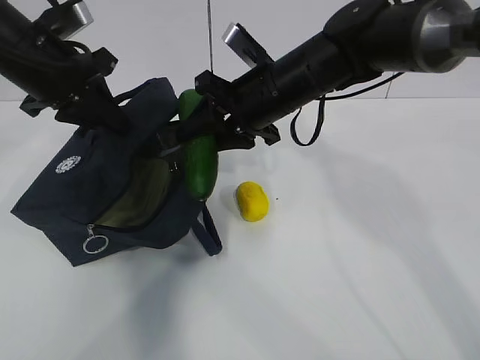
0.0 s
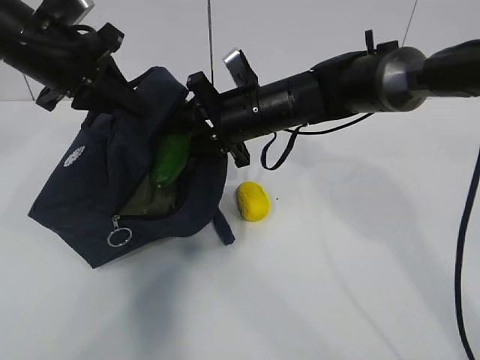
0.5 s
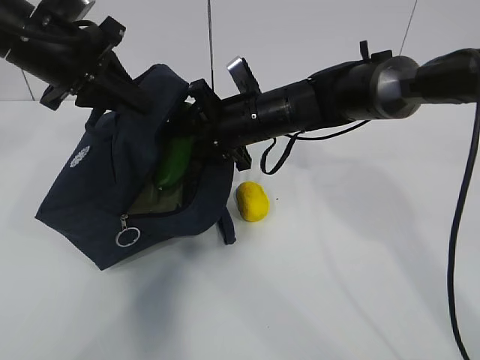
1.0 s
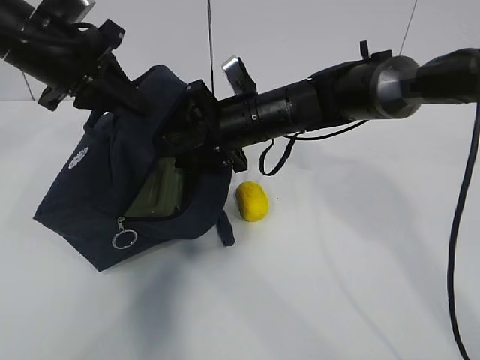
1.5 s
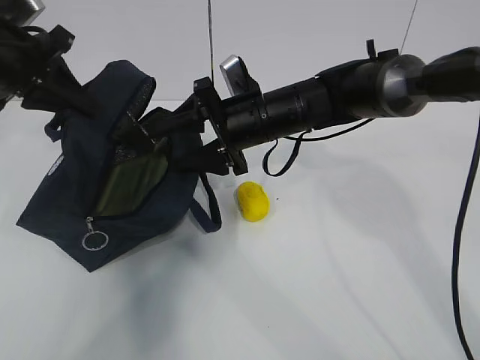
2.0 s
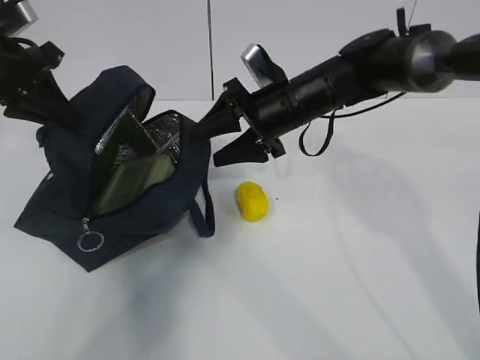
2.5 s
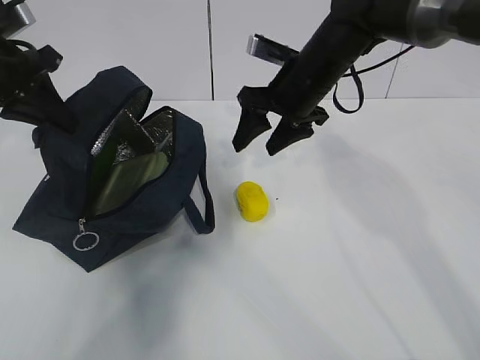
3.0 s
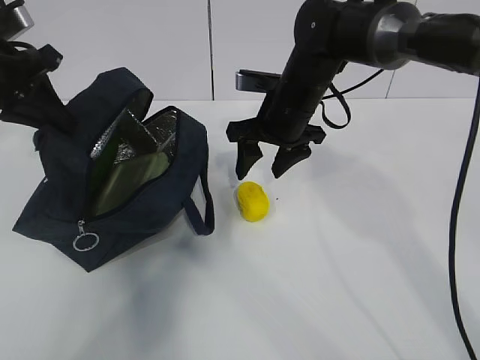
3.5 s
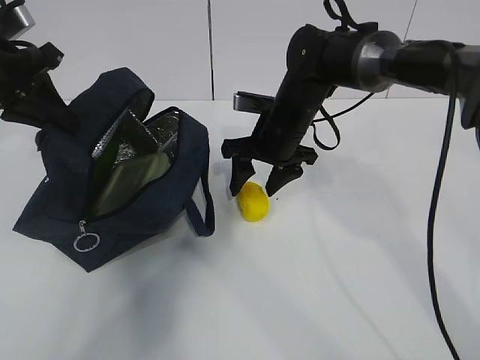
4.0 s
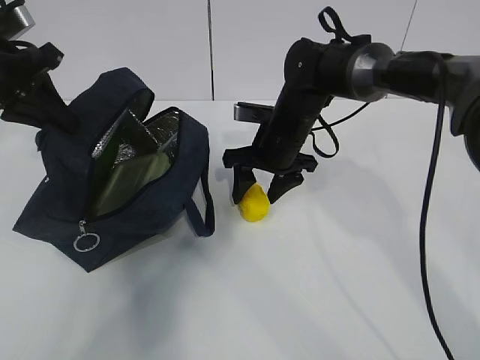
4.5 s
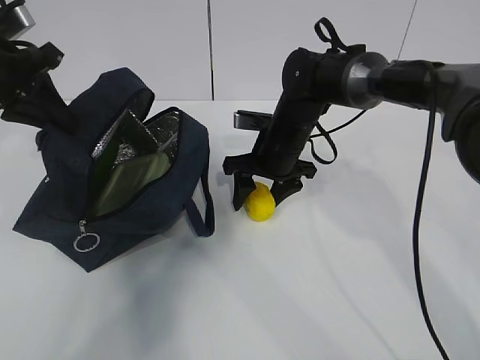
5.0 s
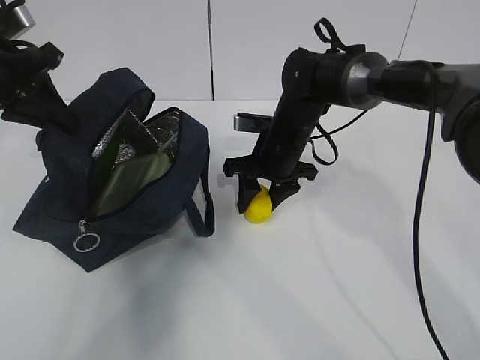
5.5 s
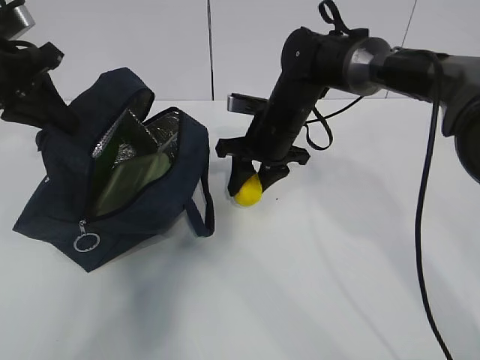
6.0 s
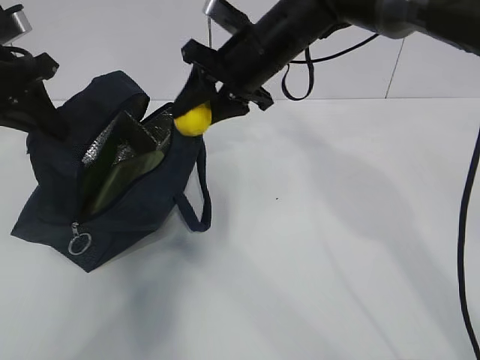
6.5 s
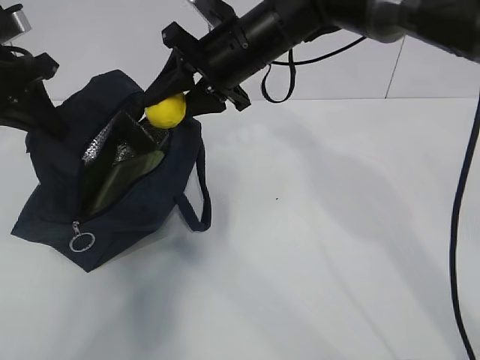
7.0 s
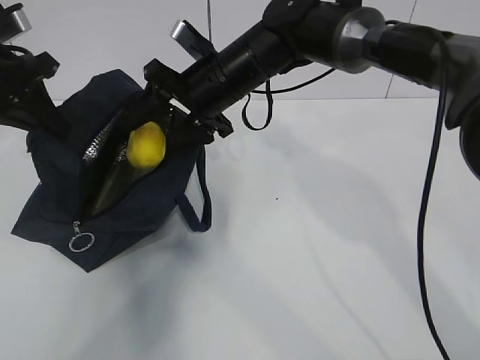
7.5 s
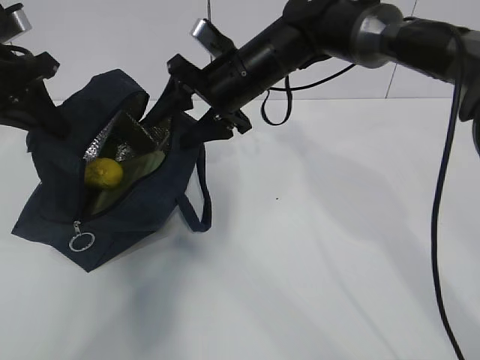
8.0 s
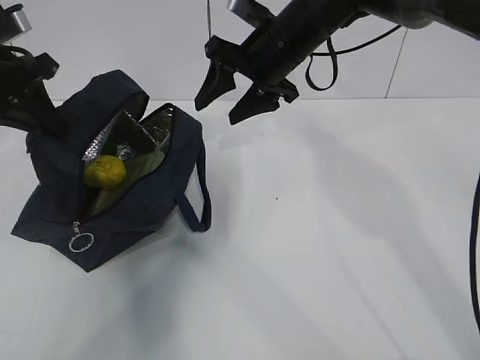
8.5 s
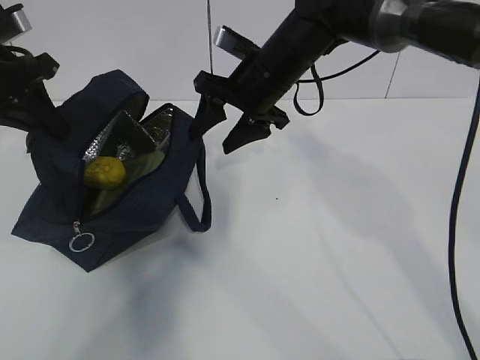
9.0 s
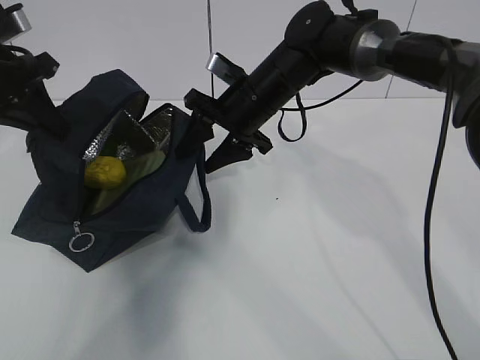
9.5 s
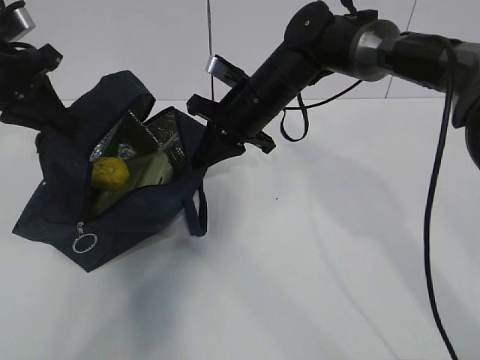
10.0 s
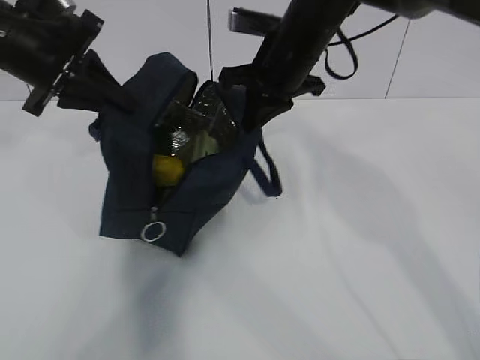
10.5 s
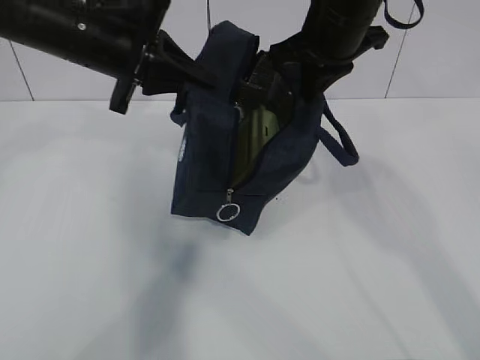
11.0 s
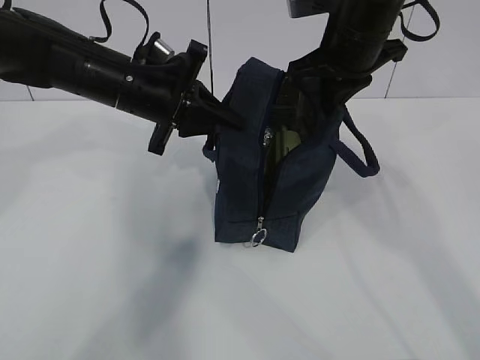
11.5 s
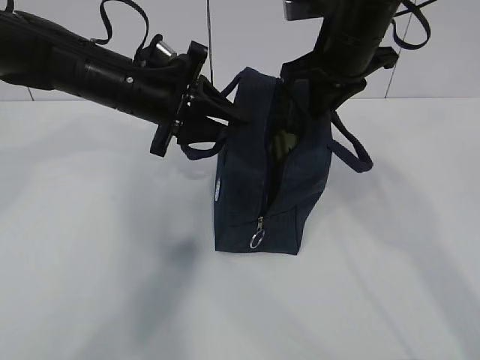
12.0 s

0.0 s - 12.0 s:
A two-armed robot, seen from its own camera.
Step, 0.0 s - 1.5 s: Secure the lunch bag with your left hand.
Step, 2.5 s - 3.0 s: Grab the lunch bag with your right hand.
Step, 3.5 s - 5.0 s: Move the lunch bag to the right.
0.0 s - 2.0 s: The right gripper opens; the left gripper shifts roughly 5 cm to the left.
2.0 s - 4.0 s: The right gripper shifts by some 5 cm.
4.0 s - 6.0 s: The right gripper closes.
6.0 s - 8.0 s: The right gripper travels upward by about 10 cm.
8.0 s - 10.0 s: The right gripper closes its fingers.
10.0 s - 12.0 s: The left gripper shifts roughly 15 cm to the right, and opens up, while the right gripper goes roughly 15 cm upward and to the right.

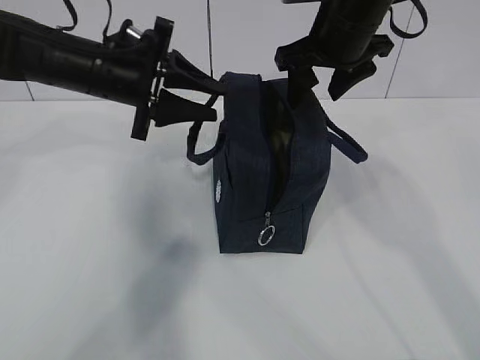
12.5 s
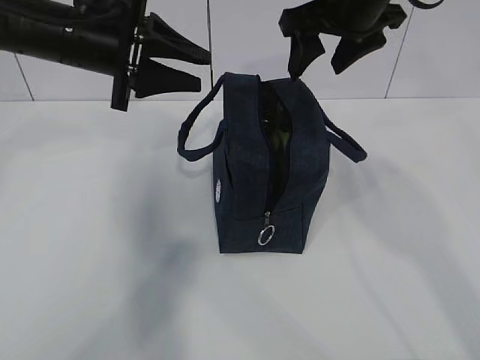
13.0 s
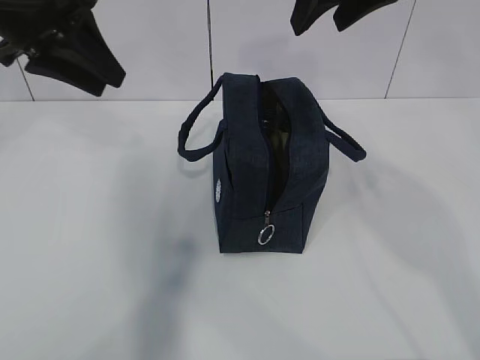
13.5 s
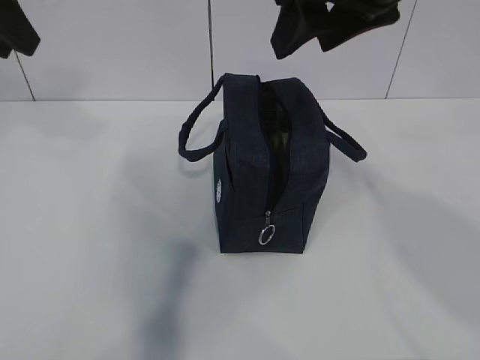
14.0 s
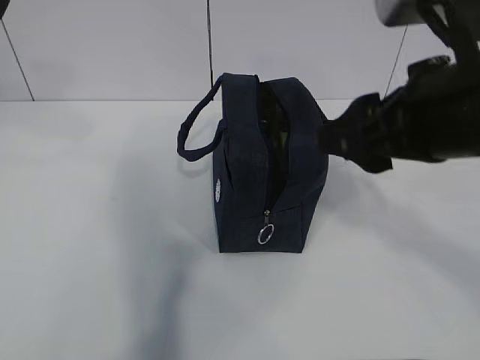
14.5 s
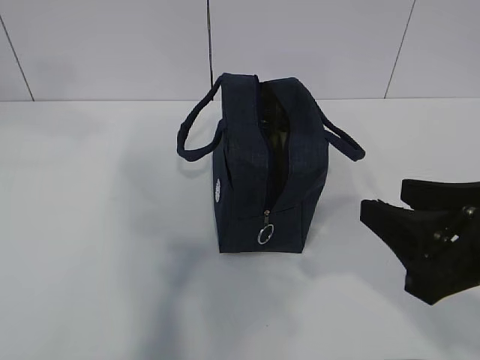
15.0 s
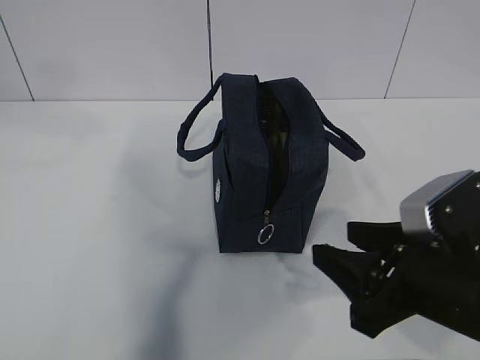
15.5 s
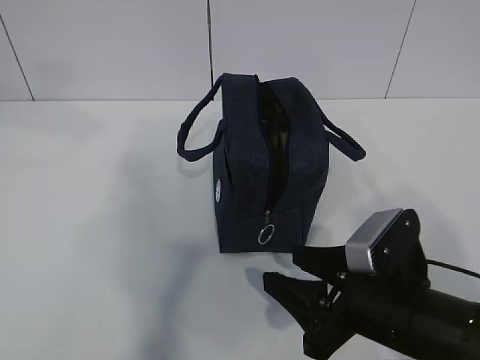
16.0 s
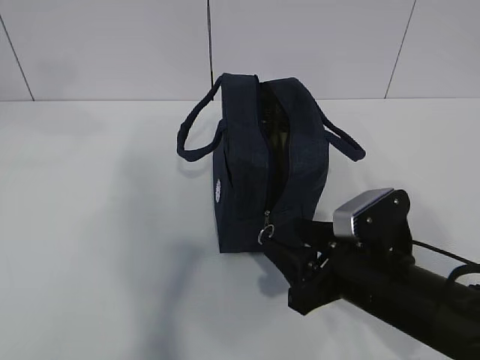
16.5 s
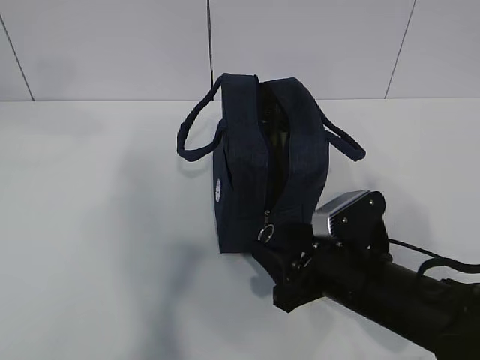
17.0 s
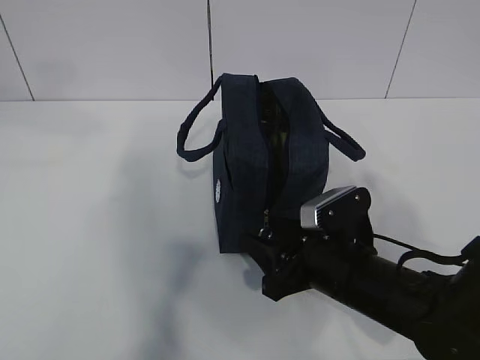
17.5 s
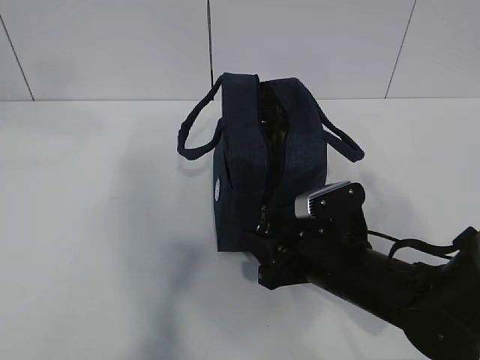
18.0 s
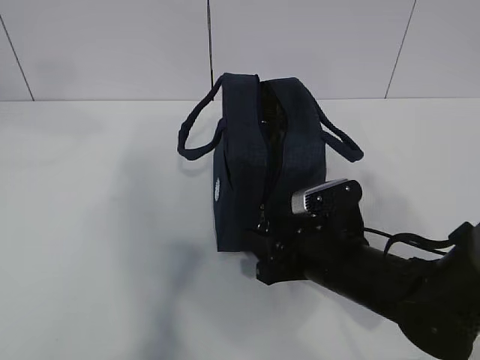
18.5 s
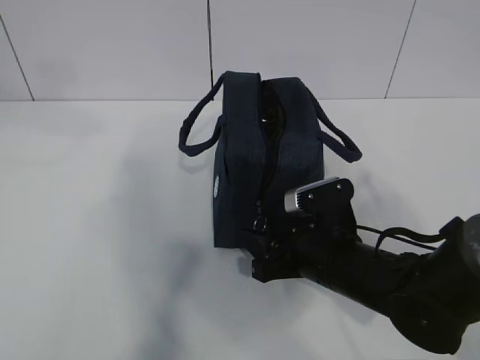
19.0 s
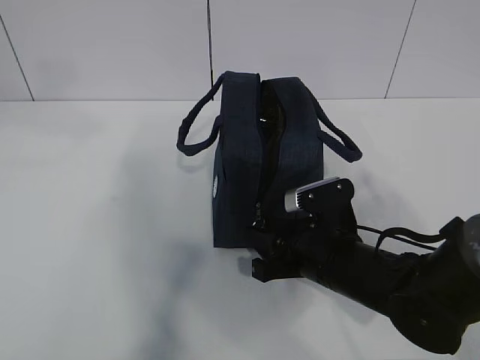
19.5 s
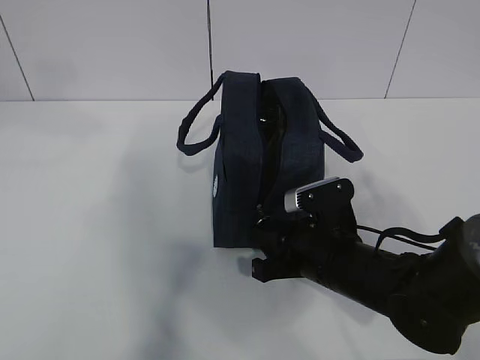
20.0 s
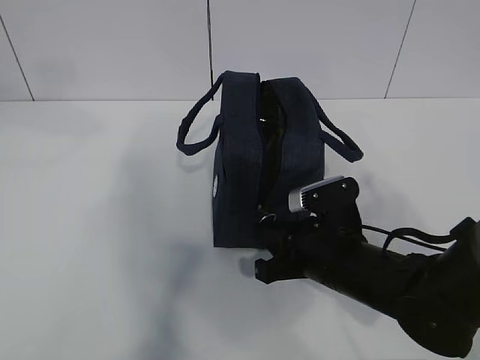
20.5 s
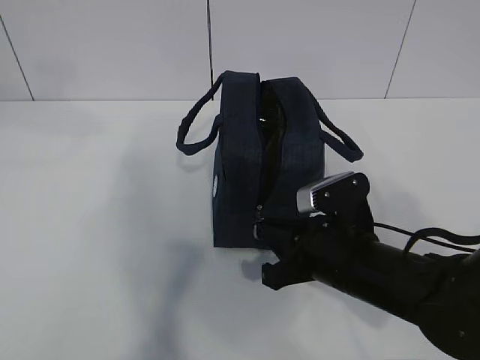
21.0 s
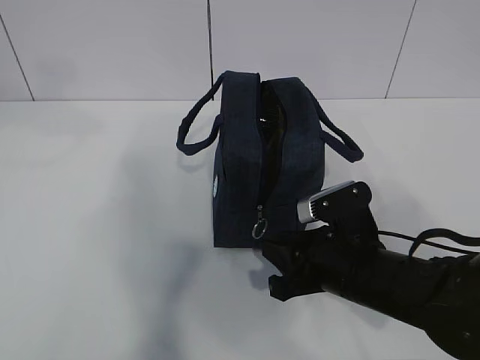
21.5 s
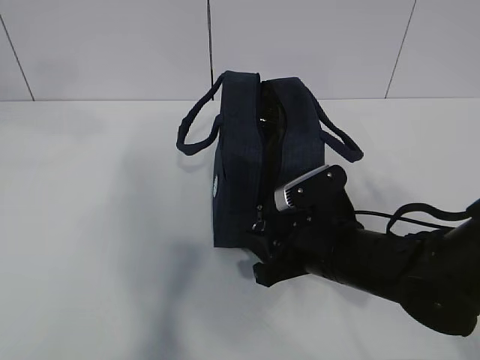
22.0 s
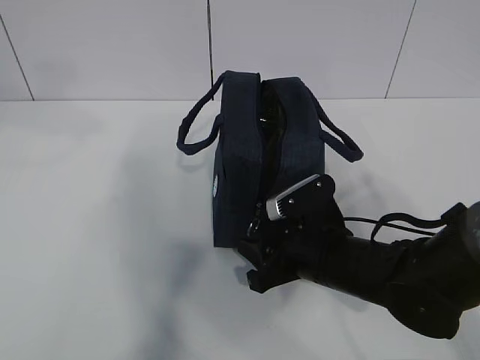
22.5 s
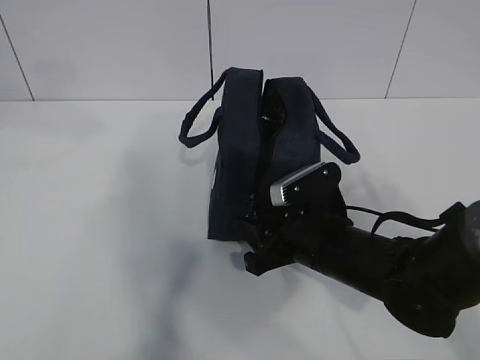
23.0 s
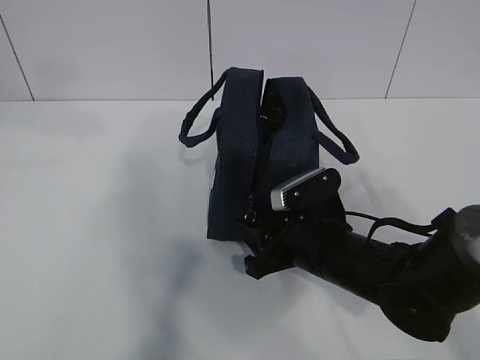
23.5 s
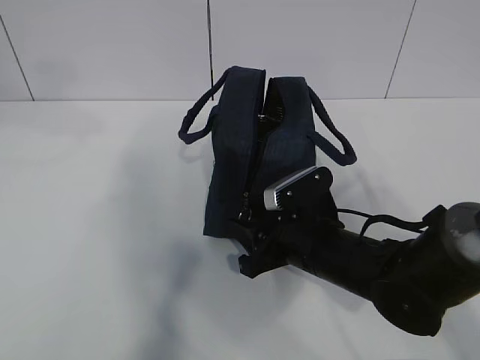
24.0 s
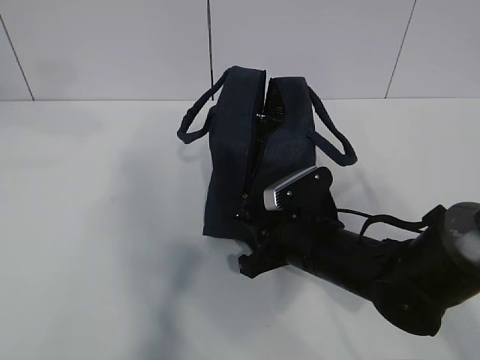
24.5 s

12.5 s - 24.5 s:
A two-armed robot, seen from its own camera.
12.5 s - 14.5 s: The right gripper goes some 20 cm backward, while the left gripper is displaced upward, backward and to the left by approximately 25 cm.
14.5 s - 16.5 s: The right gripper moves downward, about 20 cm.
16.5 s - 18.5 s: The right gripper changes place by some 5 cm.
18.5 s - 20.5 s: The right gripper closes.
20.5 s - 22.5 s: The right gripper opens up.
22.5 s - 24.5 s: The grippers make only small movements.

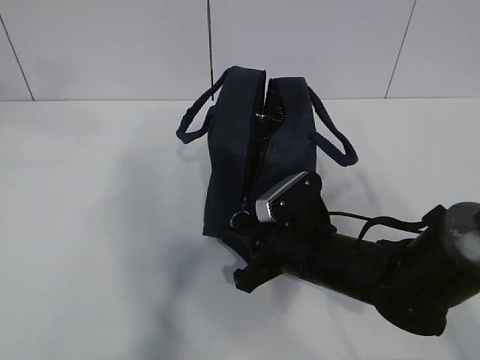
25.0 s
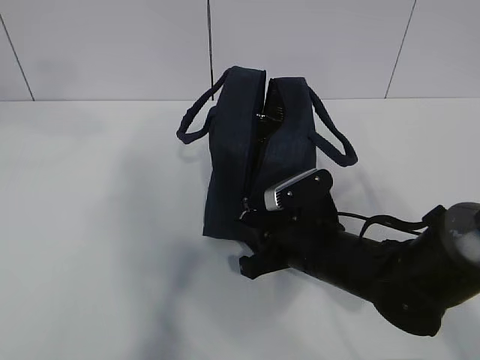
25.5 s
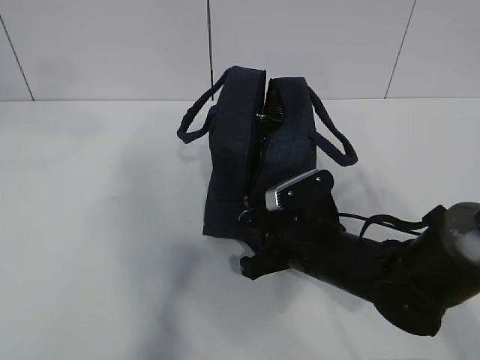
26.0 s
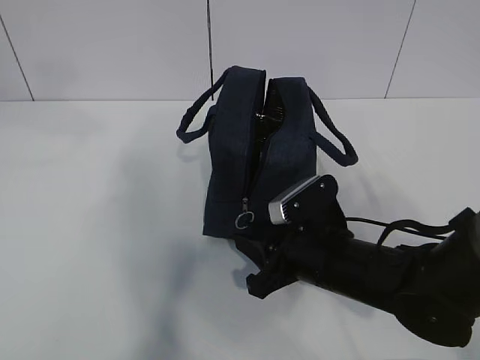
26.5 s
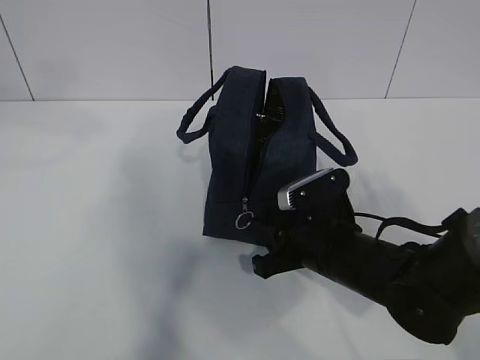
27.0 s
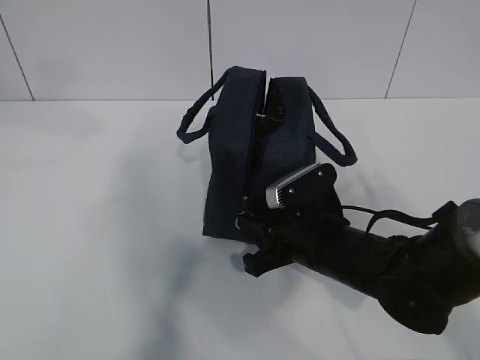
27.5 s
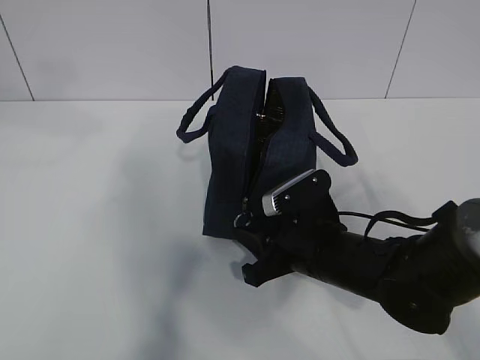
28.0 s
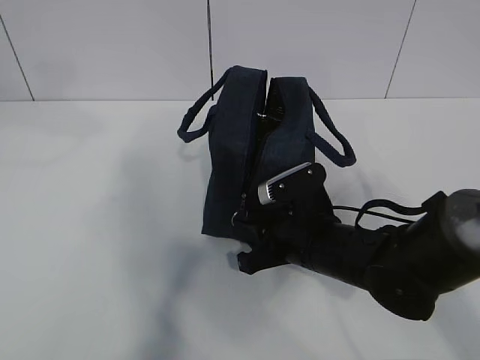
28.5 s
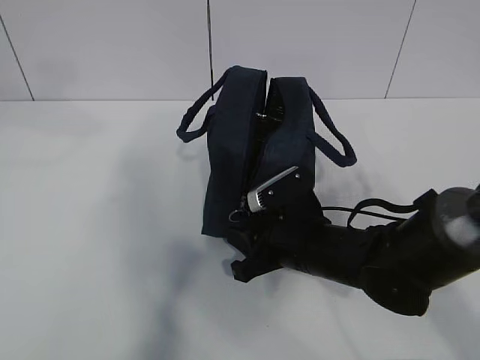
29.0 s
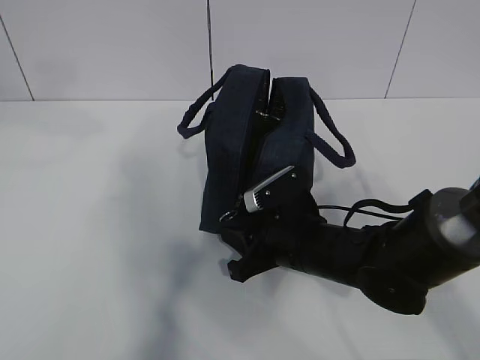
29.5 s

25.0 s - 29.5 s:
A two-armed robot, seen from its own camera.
25.0 s - 29.5 s: The grippers make only small movements.
